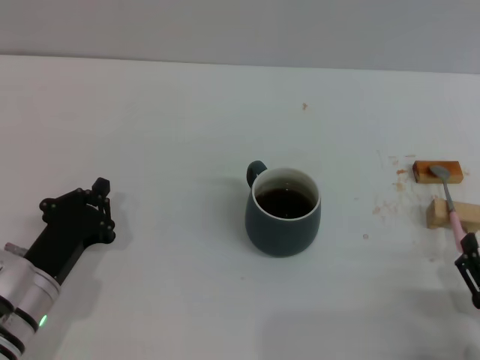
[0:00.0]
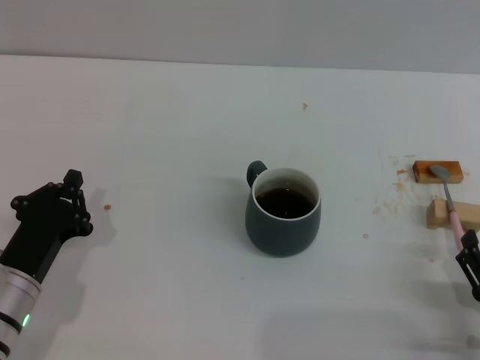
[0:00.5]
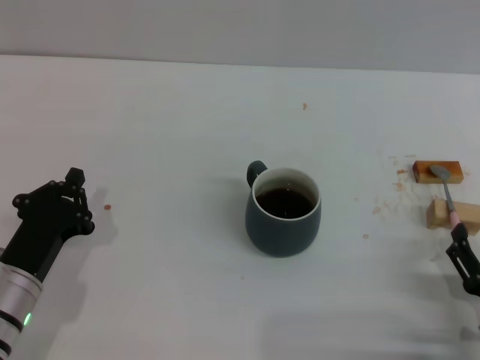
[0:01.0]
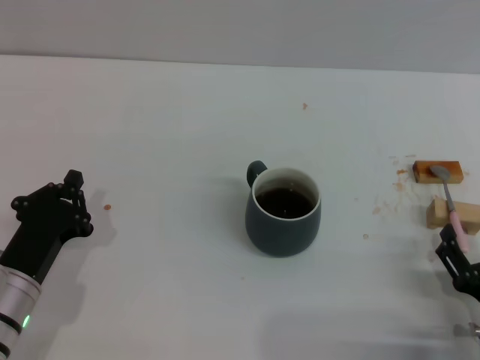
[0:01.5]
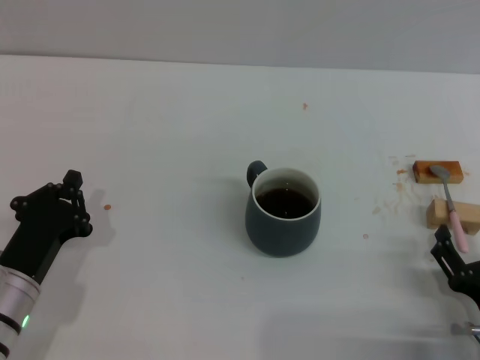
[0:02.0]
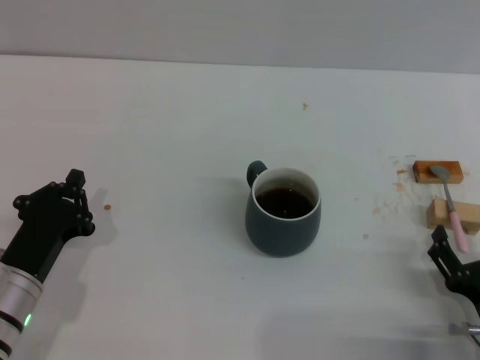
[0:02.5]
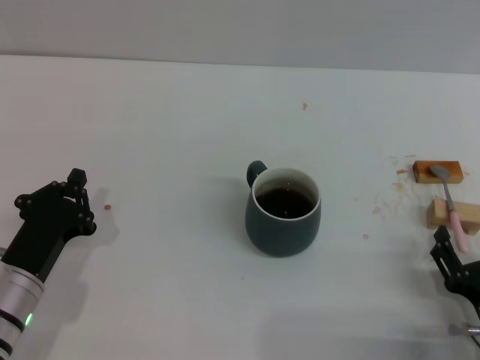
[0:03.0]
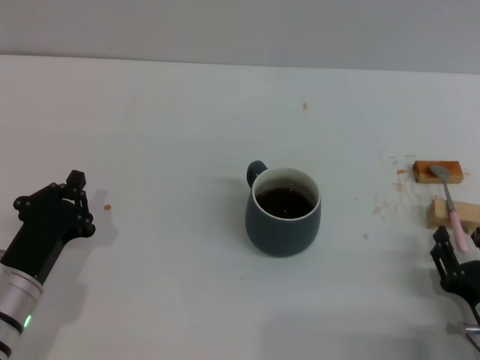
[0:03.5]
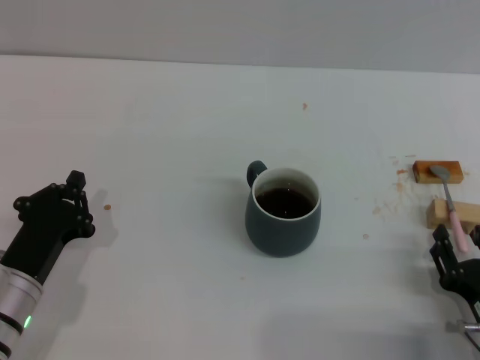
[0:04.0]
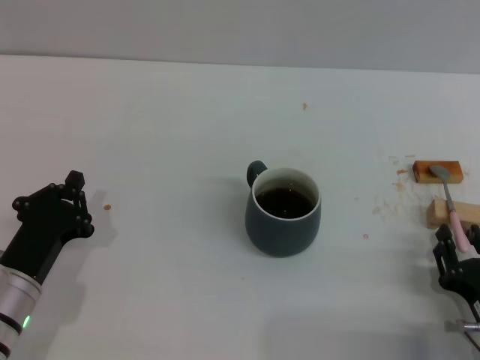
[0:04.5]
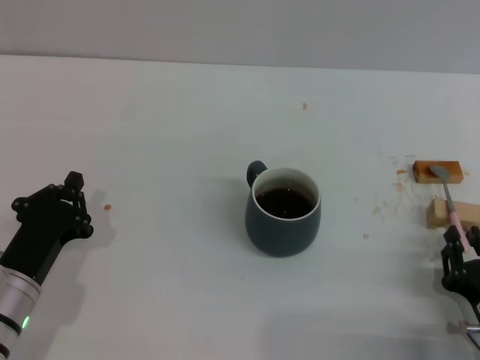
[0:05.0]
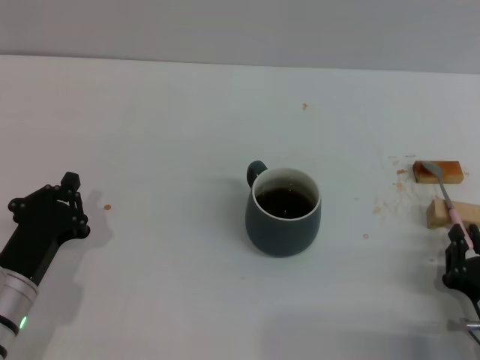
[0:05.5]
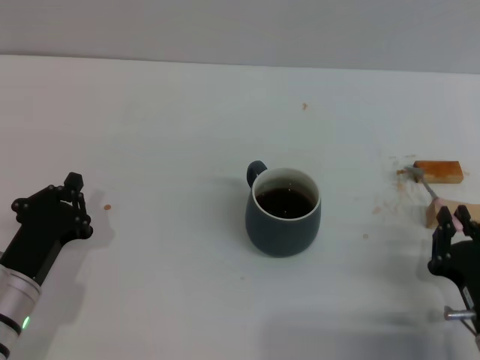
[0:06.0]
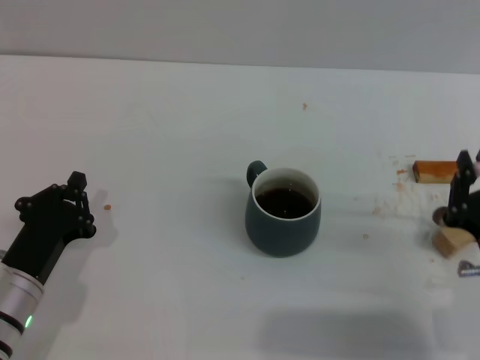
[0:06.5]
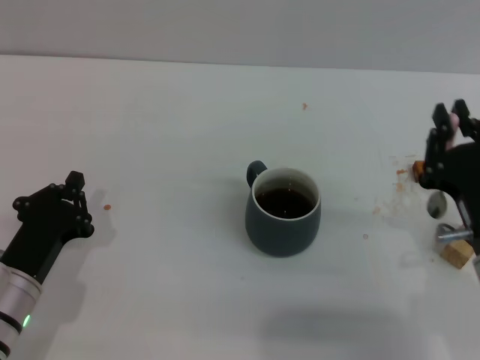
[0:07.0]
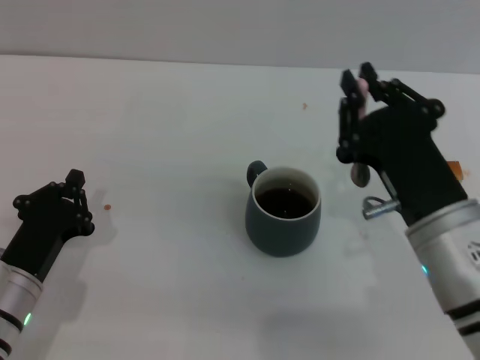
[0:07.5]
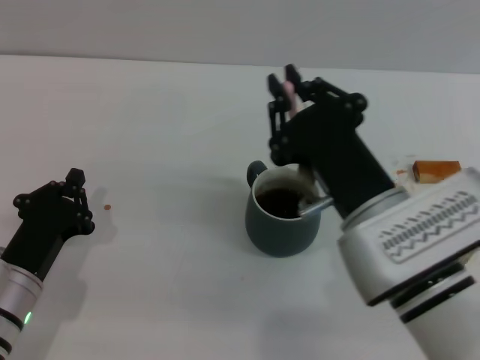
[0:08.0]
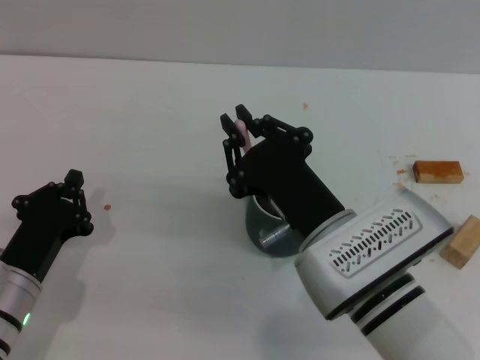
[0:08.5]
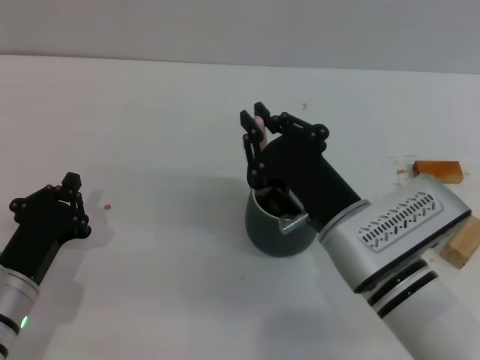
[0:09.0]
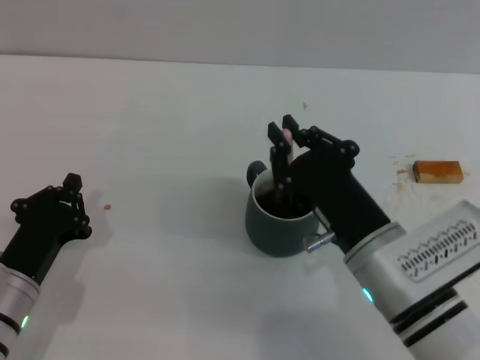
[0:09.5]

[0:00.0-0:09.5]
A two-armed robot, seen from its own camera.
Task of the whole recording: Move the grey cup to the center, lift the pink spoon, stir it three times in the cup, and put the spoon into the cup.
Step, 0:00.0 to 0:07.0: Pick up the spoon with the right gripper.
0:00.0 to 0:02.0: There are only small adjustments of the grippers.
0:02.0 to 0:04.0: The right gripper closes up.
0:04.0 to 0:05.5: The right gripper closes.
0:05.5 to 0:07.5: The right gripper goes some 15 cm upward and to the left.
0:07.5 to 0:09.5: The right gripper shifts by roughly 5 cm.

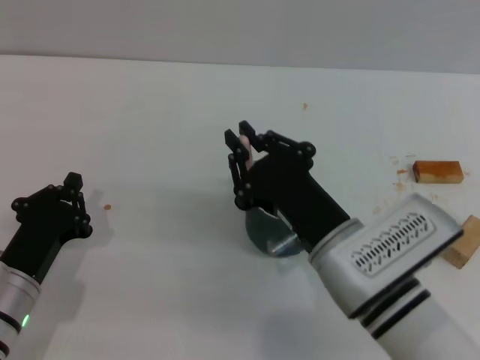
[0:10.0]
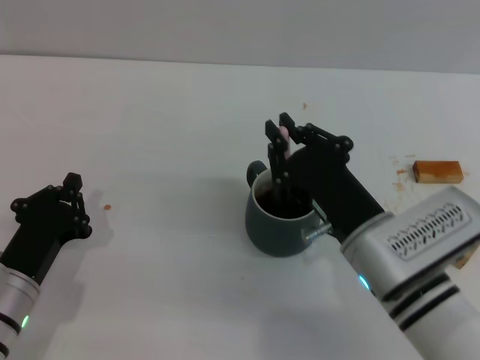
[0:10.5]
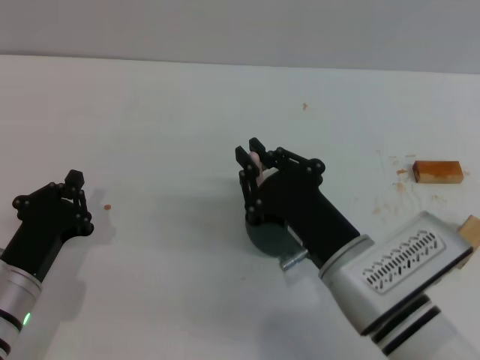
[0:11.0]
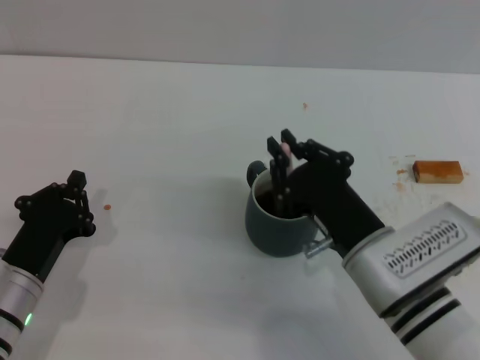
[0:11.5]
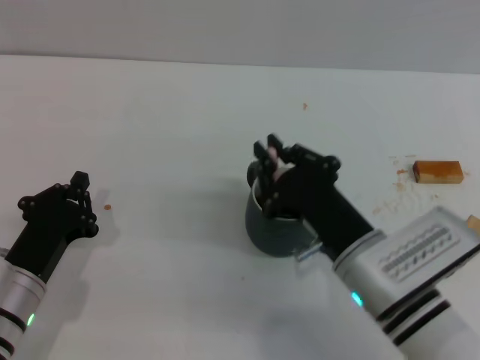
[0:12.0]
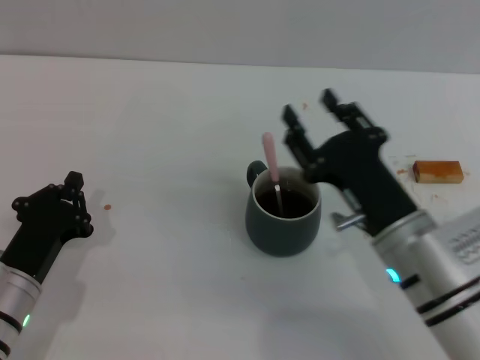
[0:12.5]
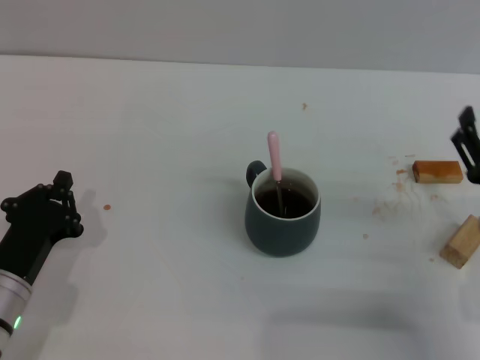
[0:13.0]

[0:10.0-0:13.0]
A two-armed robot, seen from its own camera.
Task of the whole recording: Move the grey cup to the center, lift the pink spoon, stir it three times in the cup, and put the spoon into the cup.
Step, 0:10.0 to 0:12.0: Stir the coffee in the cup with the right gripper.
0:10.0 to 0:11.5: The grippers stay close to where they were, moving slightly.
0:11.5 to 0:13.0: The right gripper heads to the right, covering roughly 10 cm, and opens up.
